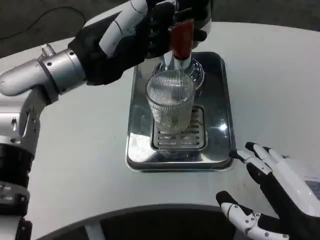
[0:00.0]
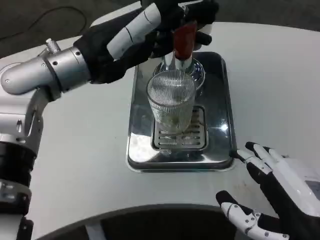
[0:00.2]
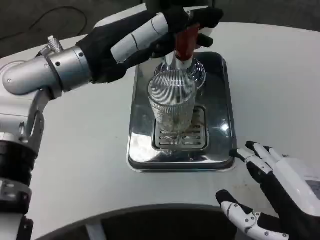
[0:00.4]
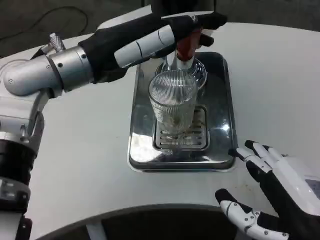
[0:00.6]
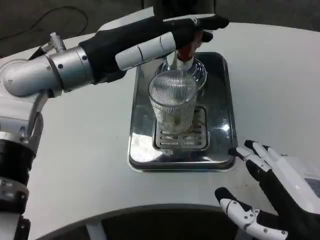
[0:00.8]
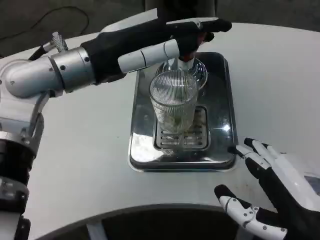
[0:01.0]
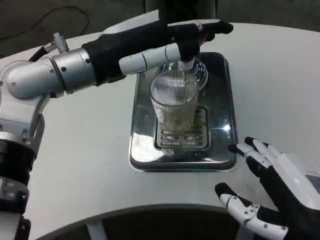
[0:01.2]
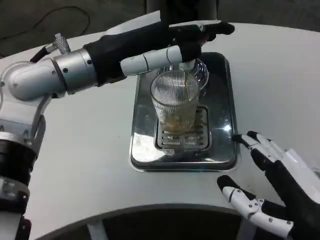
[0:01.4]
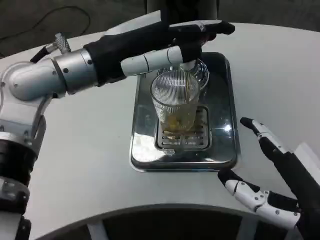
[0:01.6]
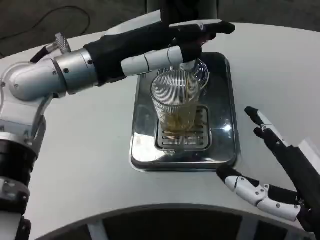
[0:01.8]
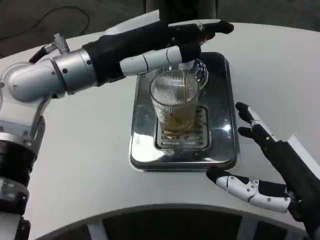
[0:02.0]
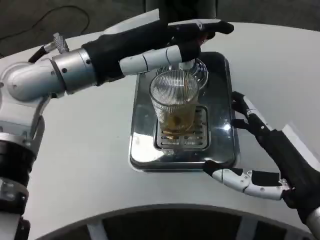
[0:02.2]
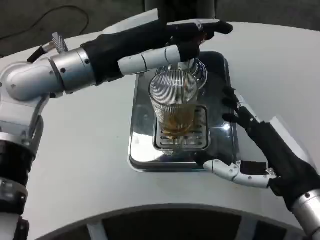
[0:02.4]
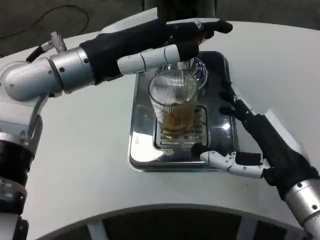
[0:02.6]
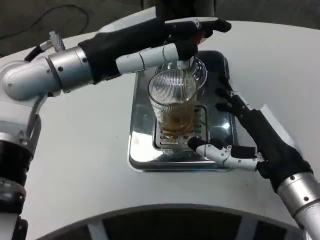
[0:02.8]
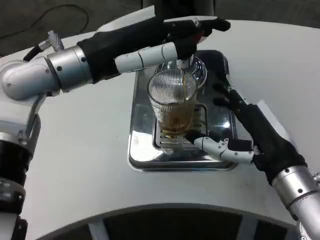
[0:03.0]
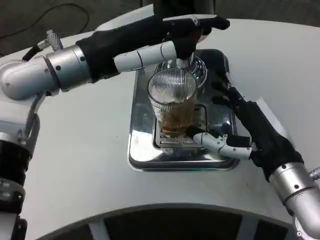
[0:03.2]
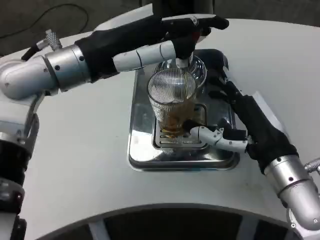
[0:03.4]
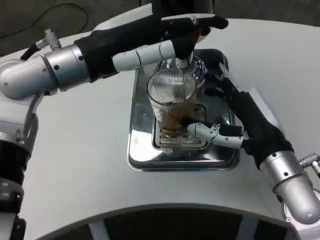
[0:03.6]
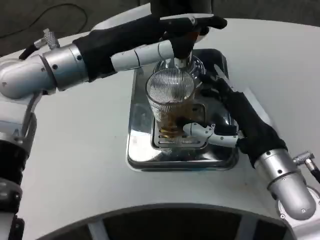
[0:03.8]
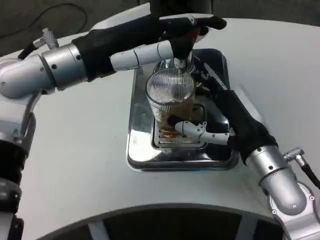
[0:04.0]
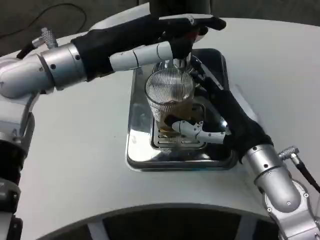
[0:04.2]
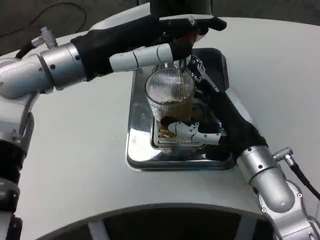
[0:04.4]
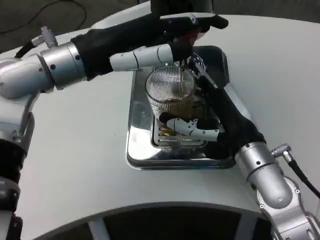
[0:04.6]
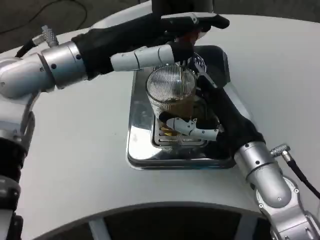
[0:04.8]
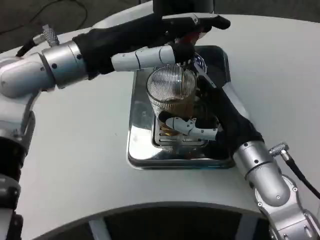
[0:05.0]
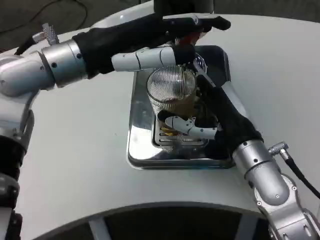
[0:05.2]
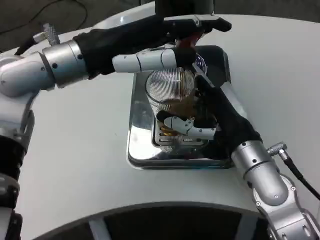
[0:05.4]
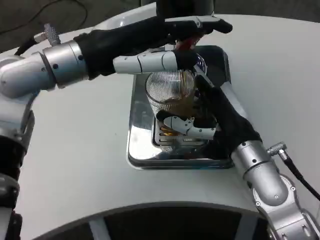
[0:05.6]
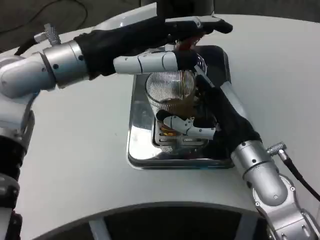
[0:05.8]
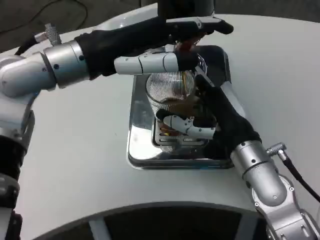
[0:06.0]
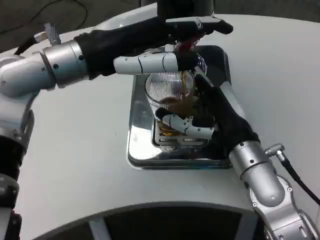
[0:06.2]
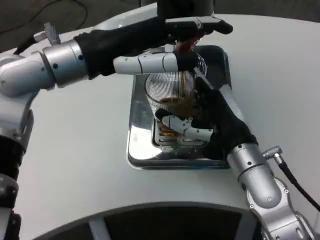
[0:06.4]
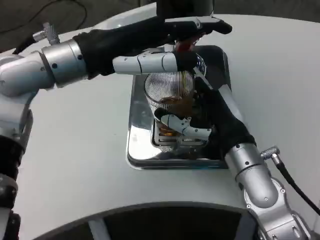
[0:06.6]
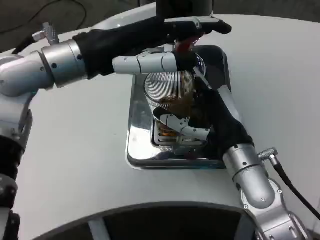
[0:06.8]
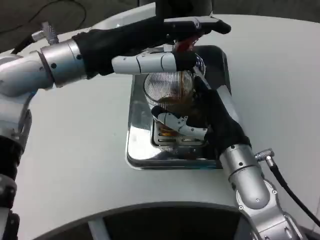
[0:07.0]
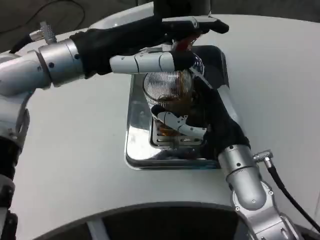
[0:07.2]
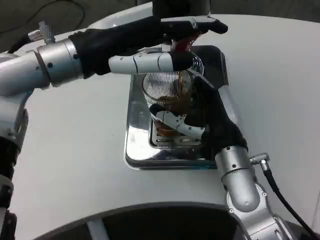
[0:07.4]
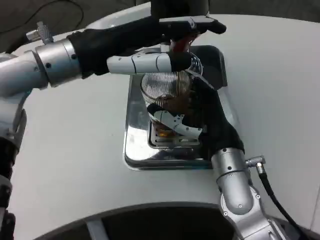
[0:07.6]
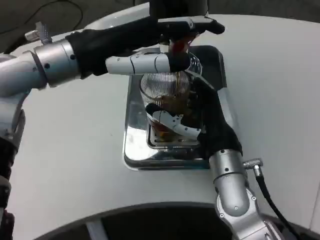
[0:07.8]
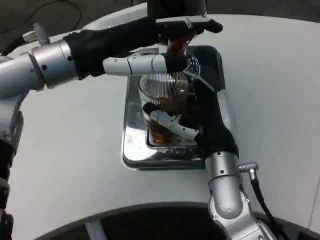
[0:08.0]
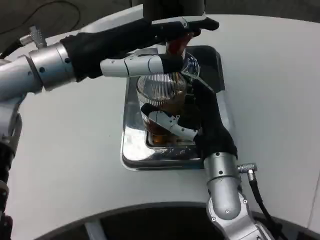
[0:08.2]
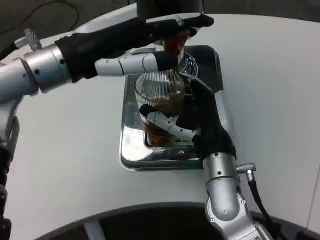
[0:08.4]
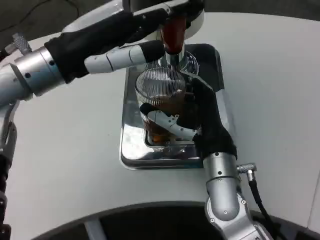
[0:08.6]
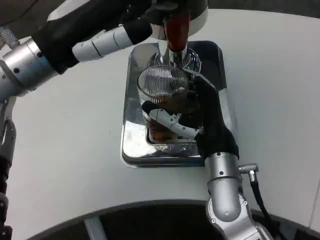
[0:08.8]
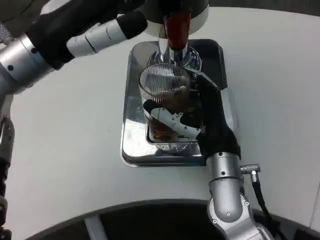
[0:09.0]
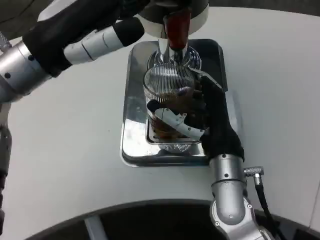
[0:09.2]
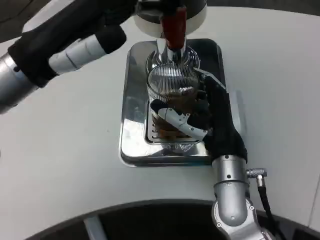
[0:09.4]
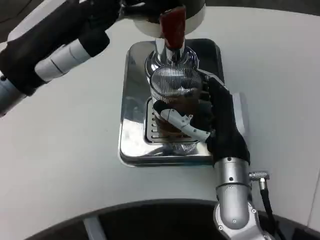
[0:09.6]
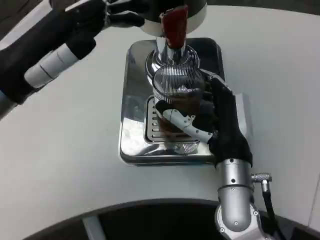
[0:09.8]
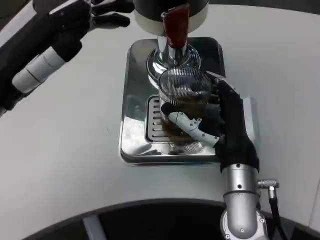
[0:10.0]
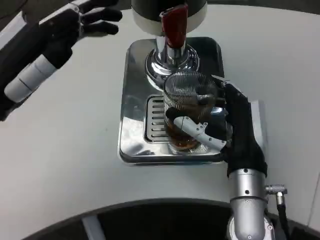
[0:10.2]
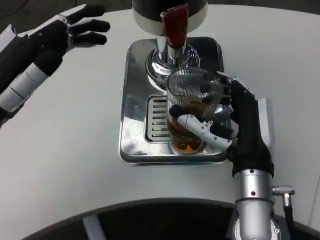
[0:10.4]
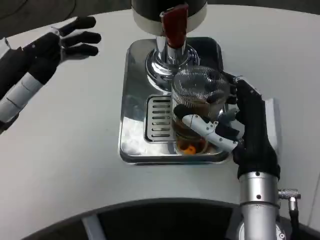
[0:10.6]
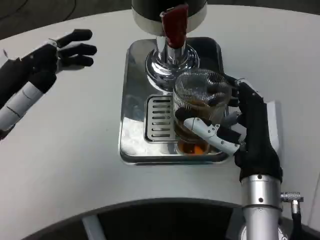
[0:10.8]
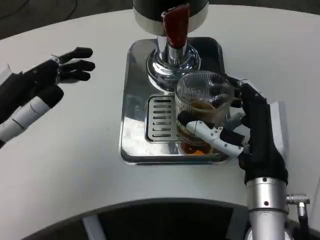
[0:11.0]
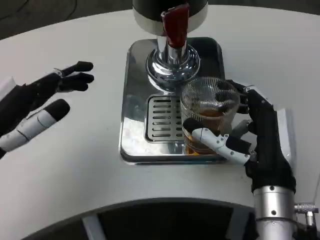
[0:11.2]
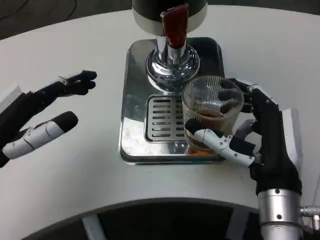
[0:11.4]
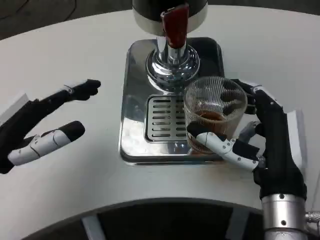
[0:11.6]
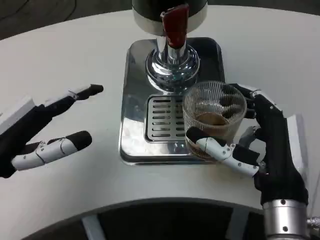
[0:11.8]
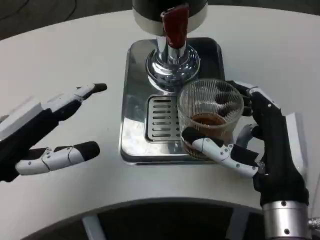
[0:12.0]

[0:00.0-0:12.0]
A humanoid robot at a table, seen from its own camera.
Task of the whole recording: Grasp the cup under the faucet to collect the drink, then remove the cup.
1.6 to 3.0 s: The right hand moves forward, about 10 cm.
3.0 to 4.4 s: The right hand moves some 5 cm.
9.0 to 10.4 s: The left hand heads downward, to the left and backward, covering approximately 10 cm.
10.4 to 12.0 s: The right hand is displaced backward by some 5 cm.

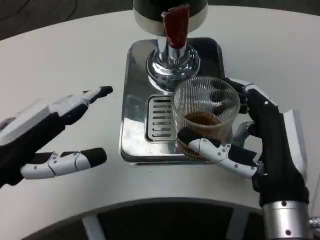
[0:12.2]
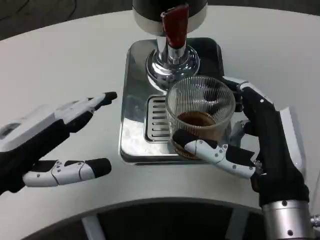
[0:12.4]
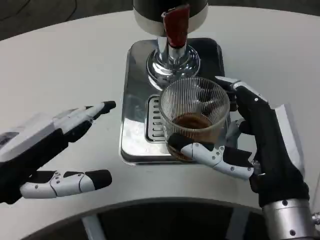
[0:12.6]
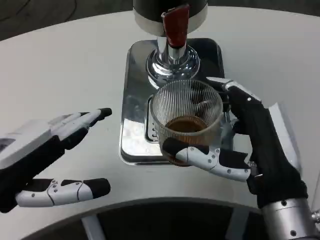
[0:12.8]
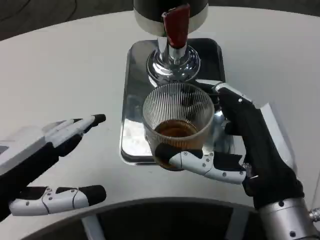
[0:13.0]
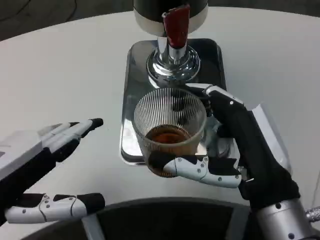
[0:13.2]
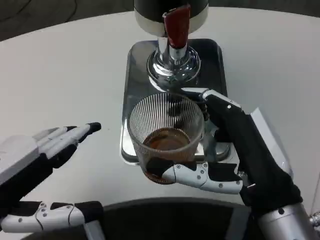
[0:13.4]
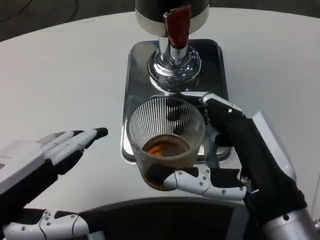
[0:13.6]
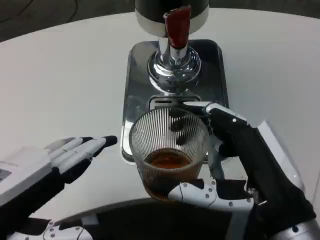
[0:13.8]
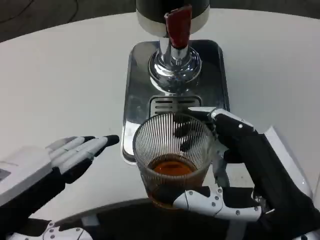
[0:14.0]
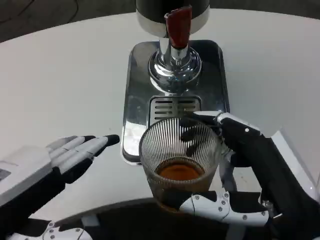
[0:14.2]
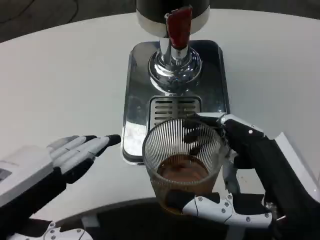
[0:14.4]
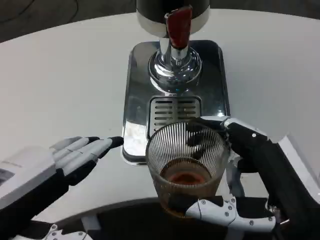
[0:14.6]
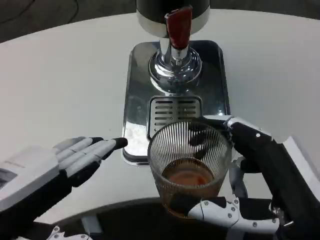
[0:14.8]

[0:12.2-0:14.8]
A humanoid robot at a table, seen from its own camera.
Task of the whole recording: Grasp the cup under the faucet to collect the drink, then remove the cup.
12.2 to 13.4 s: The left hand travels backward by roughly 10 cm.
13.4 to 14.8 s: The right hand ends up about 5 cm from where it was.

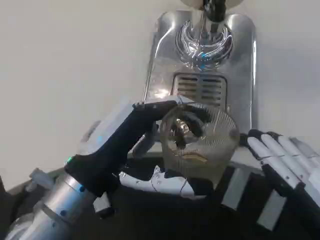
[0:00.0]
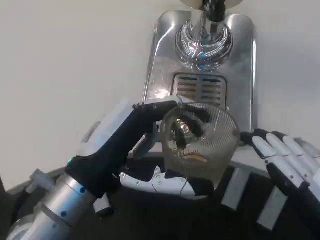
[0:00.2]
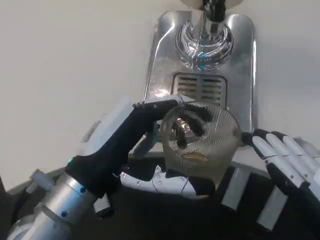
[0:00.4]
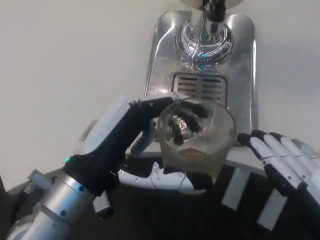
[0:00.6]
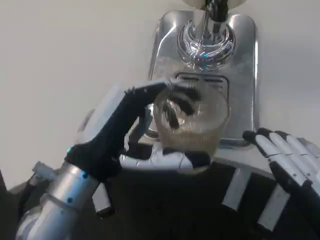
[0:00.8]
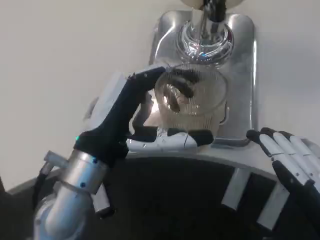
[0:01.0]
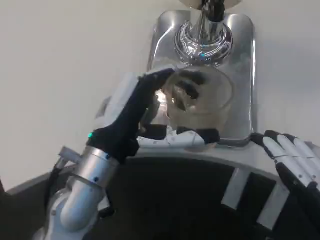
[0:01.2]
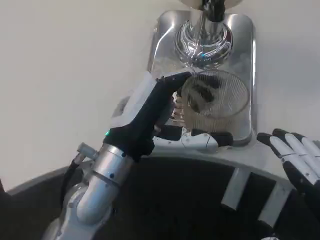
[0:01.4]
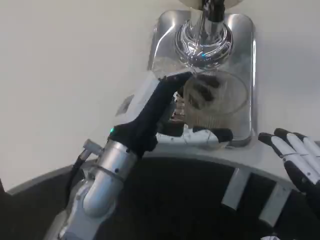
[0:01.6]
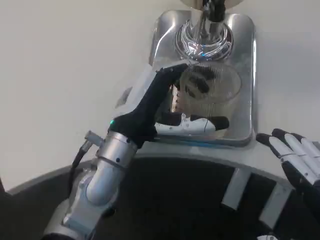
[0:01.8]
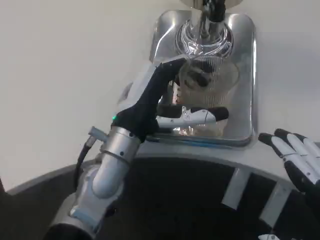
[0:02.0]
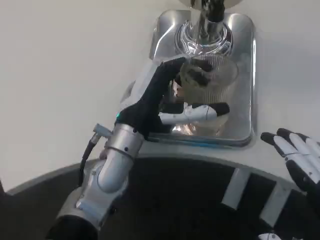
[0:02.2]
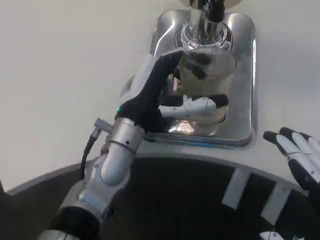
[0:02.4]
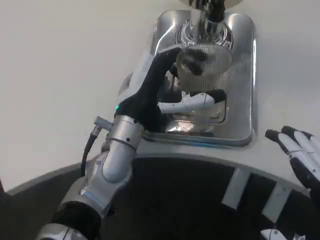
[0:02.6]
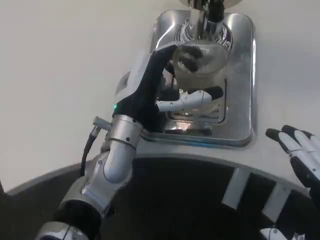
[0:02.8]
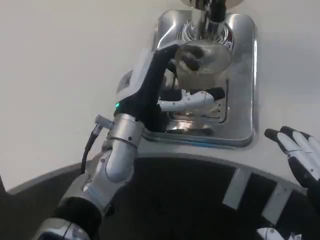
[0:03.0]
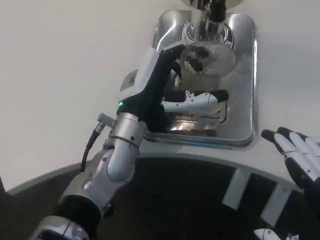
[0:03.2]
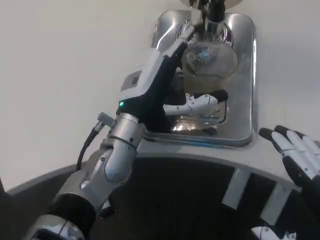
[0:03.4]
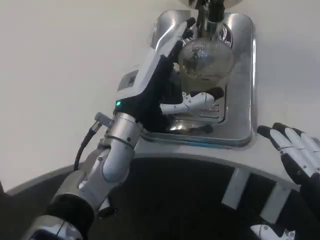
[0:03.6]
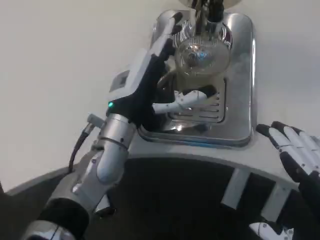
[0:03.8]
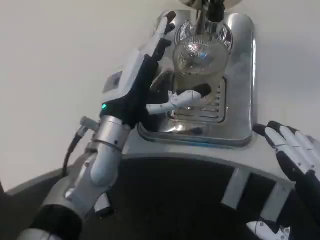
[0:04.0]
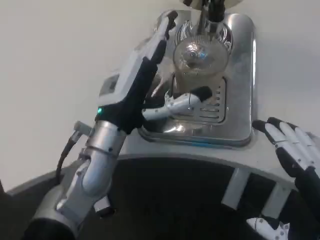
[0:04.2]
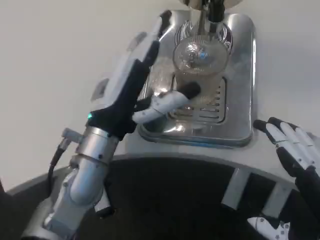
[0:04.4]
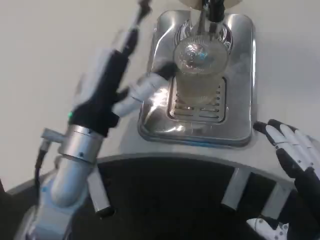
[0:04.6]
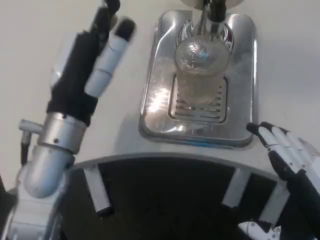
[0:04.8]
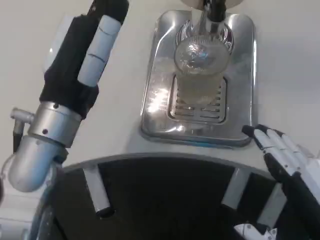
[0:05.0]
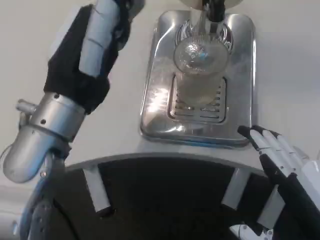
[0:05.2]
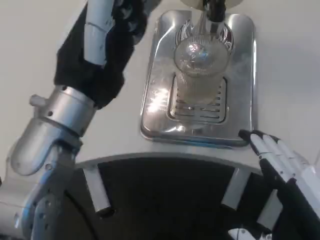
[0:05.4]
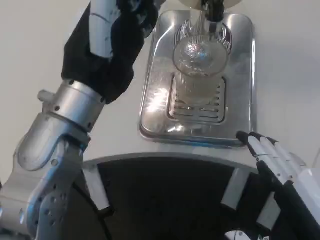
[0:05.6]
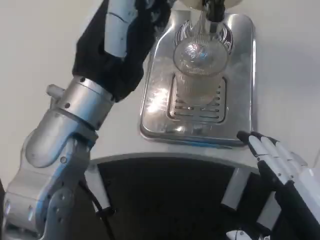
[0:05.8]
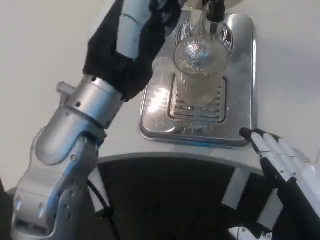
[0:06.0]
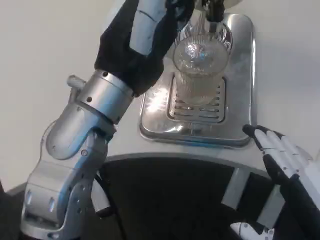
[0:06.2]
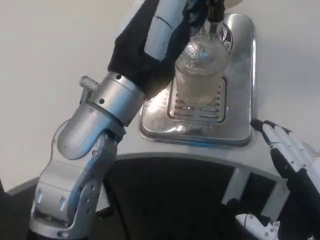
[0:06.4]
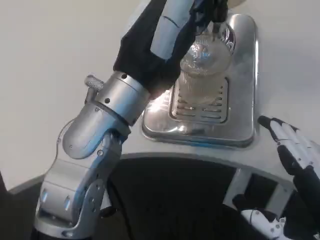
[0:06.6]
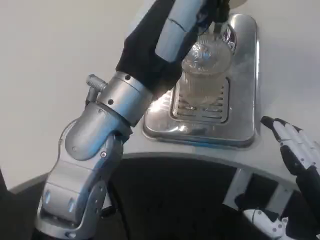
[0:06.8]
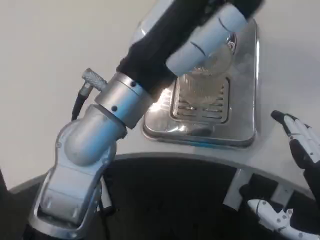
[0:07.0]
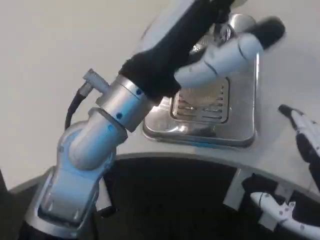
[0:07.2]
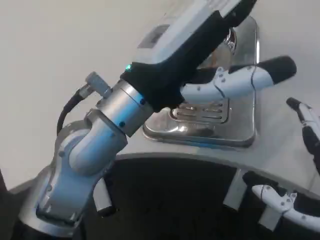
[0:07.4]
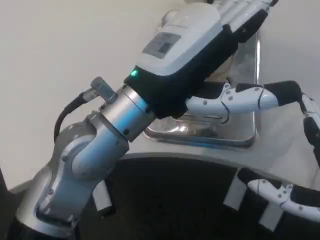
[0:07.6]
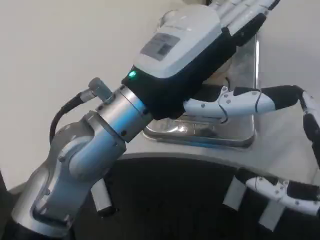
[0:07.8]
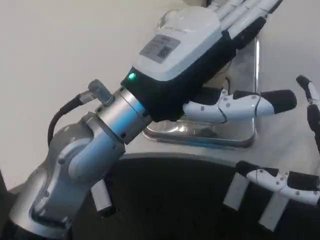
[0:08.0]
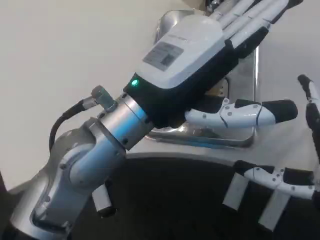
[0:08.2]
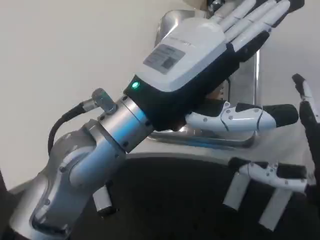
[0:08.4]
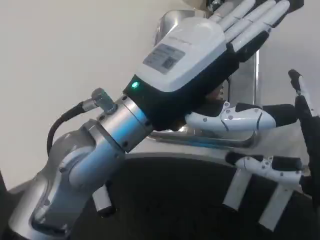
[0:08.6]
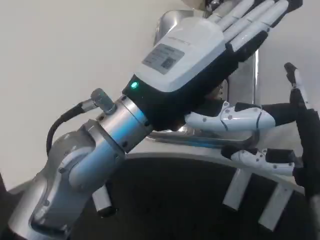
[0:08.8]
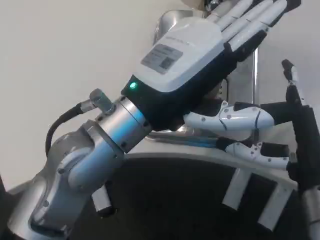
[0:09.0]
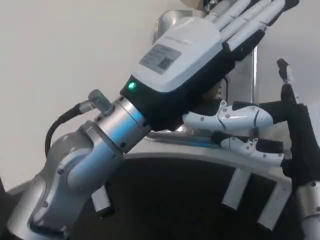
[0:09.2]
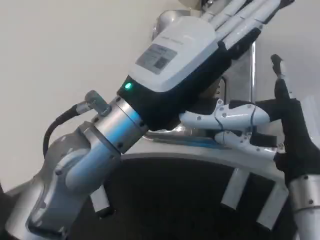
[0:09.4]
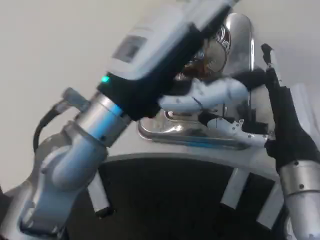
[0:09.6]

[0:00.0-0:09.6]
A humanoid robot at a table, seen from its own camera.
Task of the whole recording: Grasp the cup under the faucet to collect the drink, then remove the cup.
0.0 to 1.6 s: The left hand travels forward by some 10 cm.
1.6 to 3.2 s: The left hand moves about 5 cm.
3.2 to 4.8 s: The left hand heads backward, to the left and upward, covering approximately 10 cm.
4.8 to 6.4 s: The left hand goes about 10 cm to the right and upward.
6.4 to 8.0 s: The right hand ends up about 5 cm from where it was.
8.0 to 9.6 s: The right hand travels forward by roughly 10 cm.
